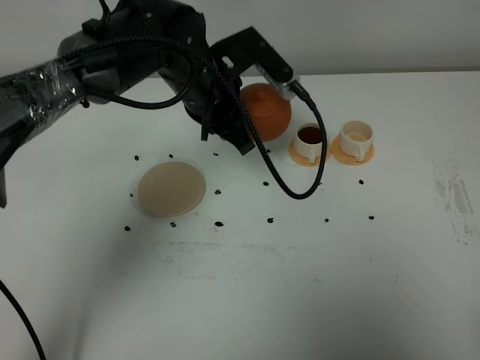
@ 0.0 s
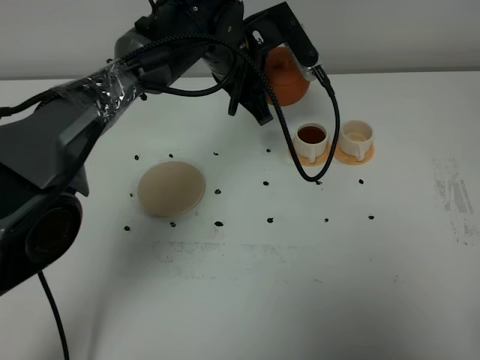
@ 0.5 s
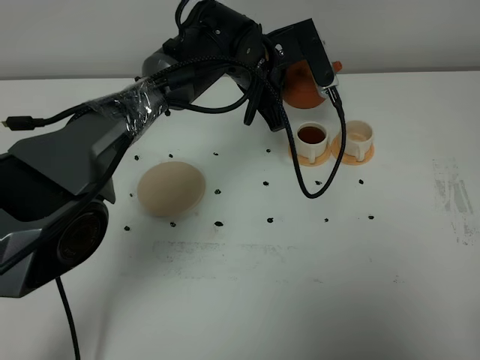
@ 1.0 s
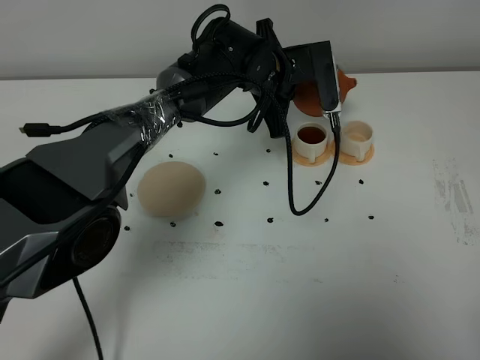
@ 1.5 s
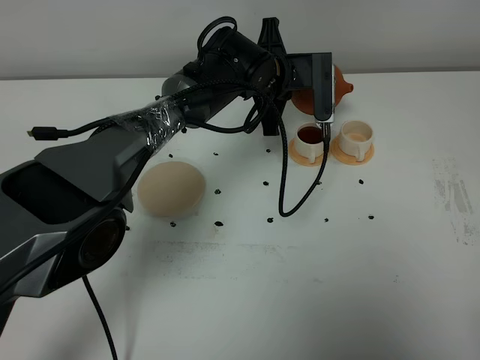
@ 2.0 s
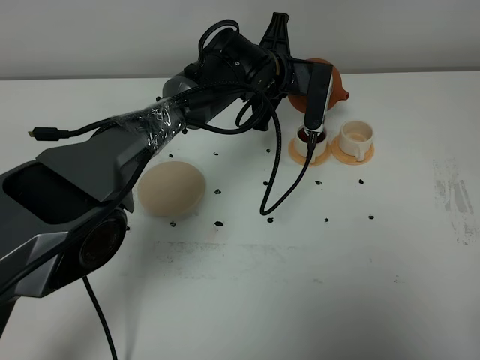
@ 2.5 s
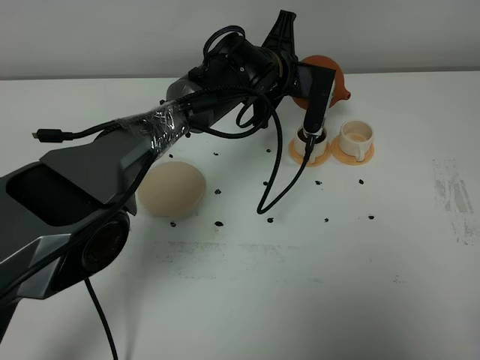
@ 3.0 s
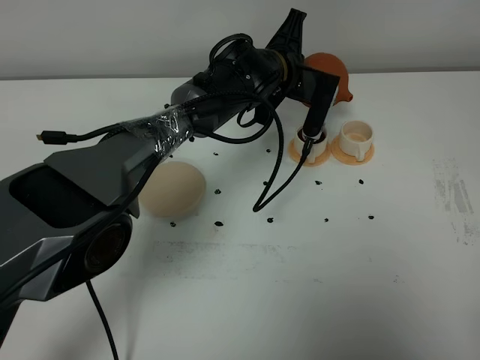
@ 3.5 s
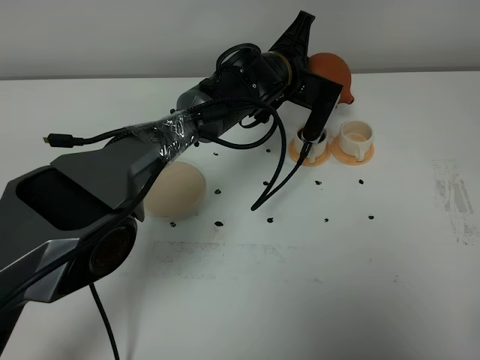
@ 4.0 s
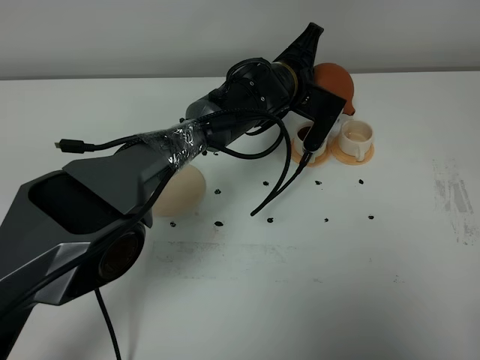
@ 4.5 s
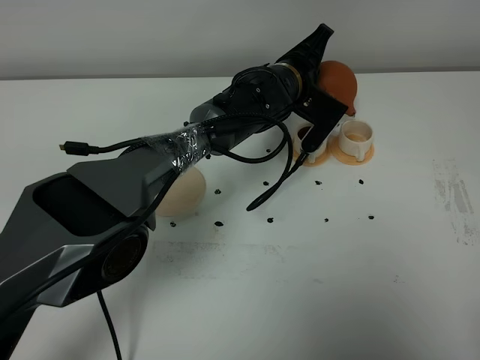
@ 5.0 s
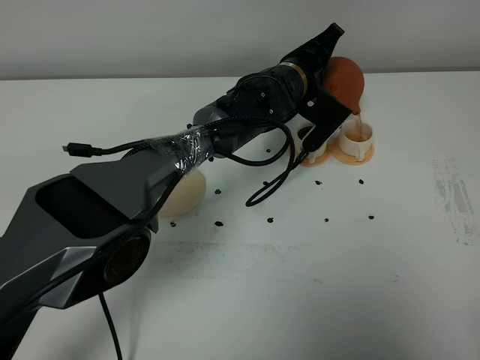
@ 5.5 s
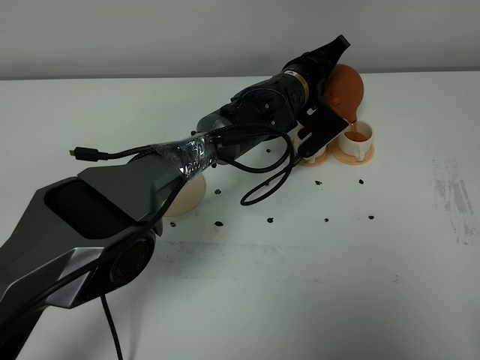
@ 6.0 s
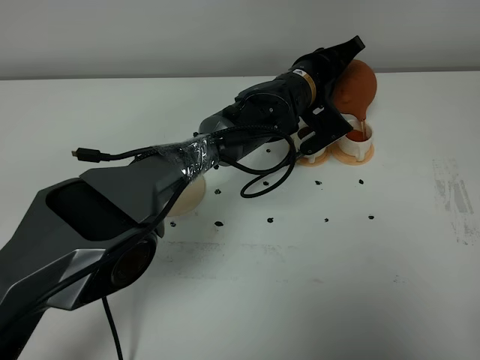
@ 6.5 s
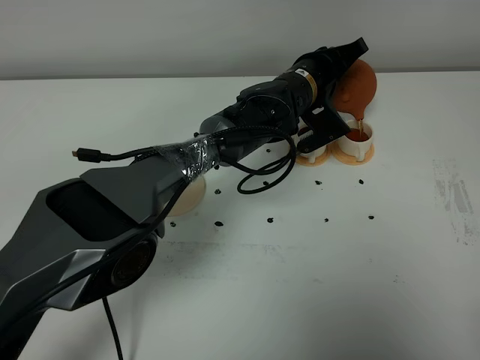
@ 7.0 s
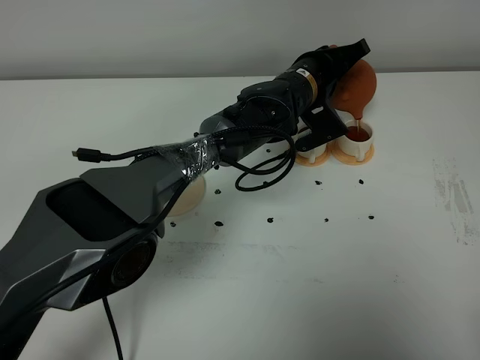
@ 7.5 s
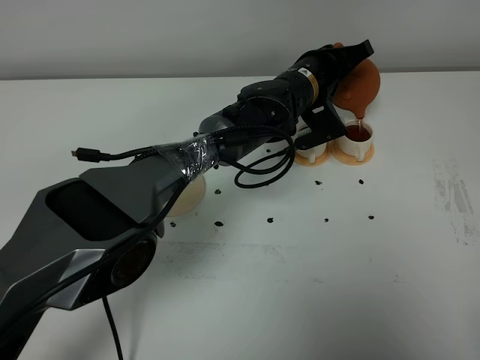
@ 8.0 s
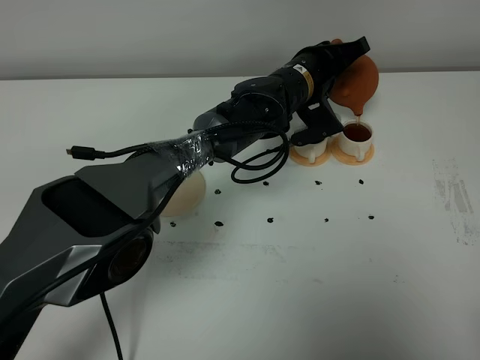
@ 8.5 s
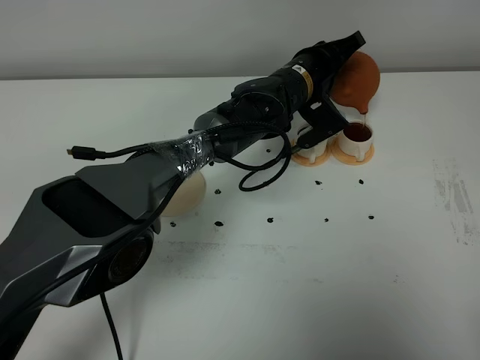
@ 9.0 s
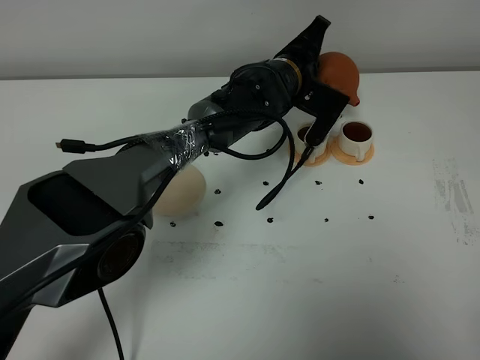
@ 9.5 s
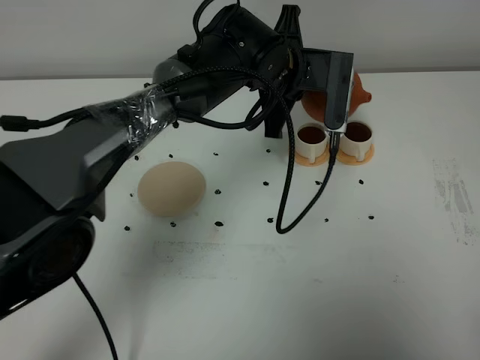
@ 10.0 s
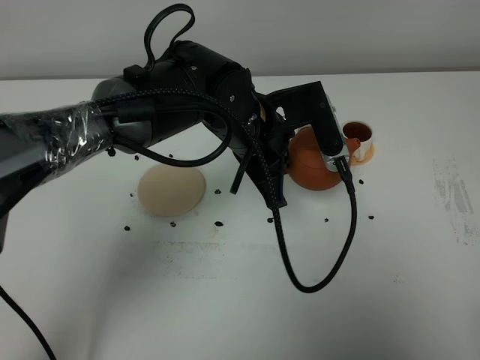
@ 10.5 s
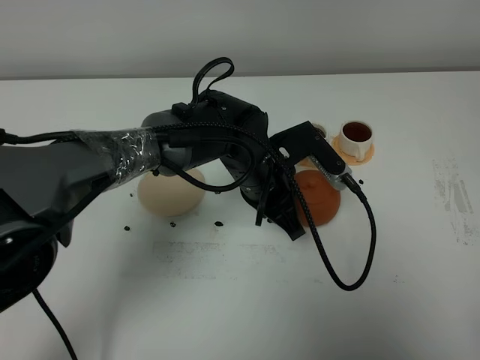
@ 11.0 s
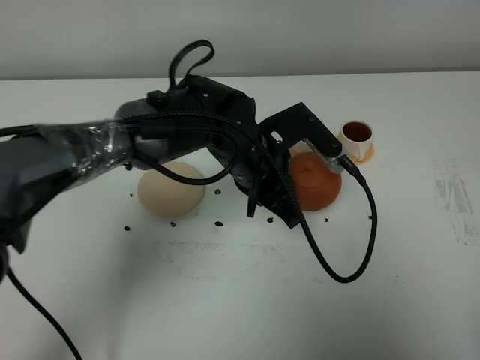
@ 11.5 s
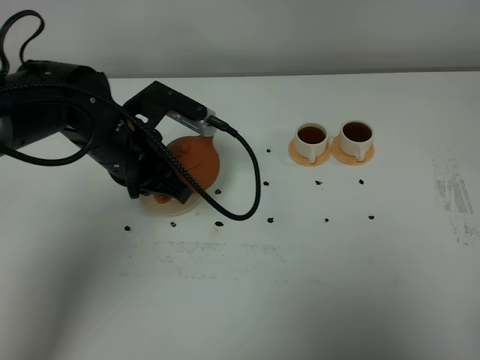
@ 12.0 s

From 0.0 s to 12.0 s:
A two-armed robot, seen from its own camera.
Task of the whole recording: grasp the brown teapot and pour the tea into the two white teacups one by one, put the brown teapot back in its original place.
Step, from 0.0 s to 9.5 s: Pour tea into the teacup with the left gripper.
From 0.0 s to 2.0 s: The left gripper heads to the right, forward and downward, covering roughly 10 cm.
From 6.0 s to 8.0 s: The grippers move only a little.
From 8.0 s to 10.0 s: The left gripper heads upward, covering about 5 cm.
From 10.0 s to 12.0 s: The left gripper heads to the left, covering approximately 20 cm.

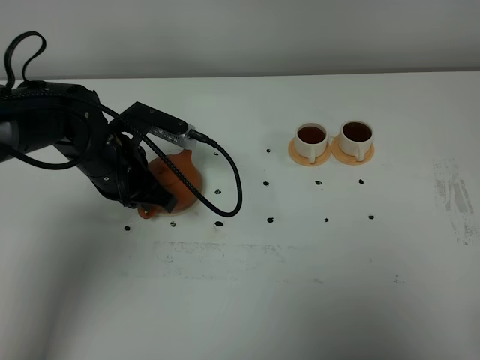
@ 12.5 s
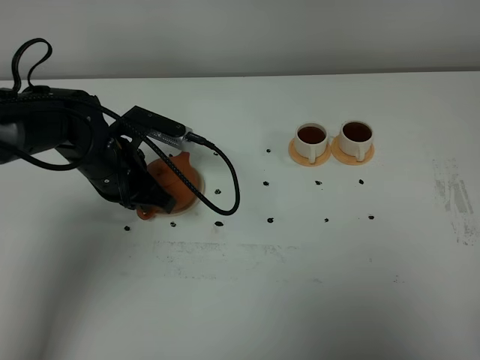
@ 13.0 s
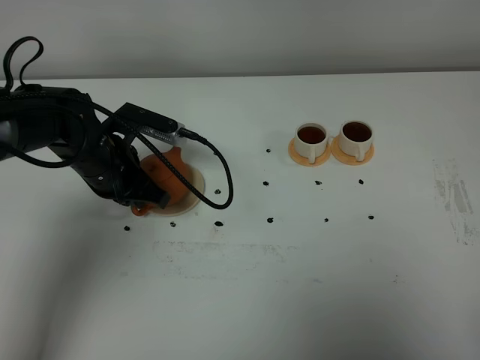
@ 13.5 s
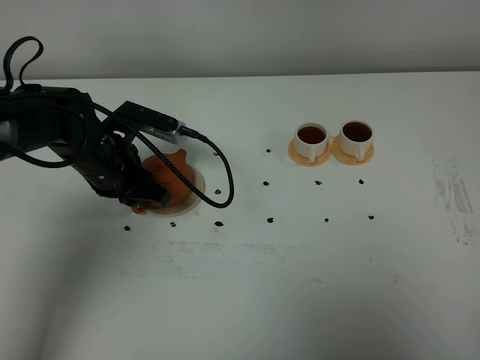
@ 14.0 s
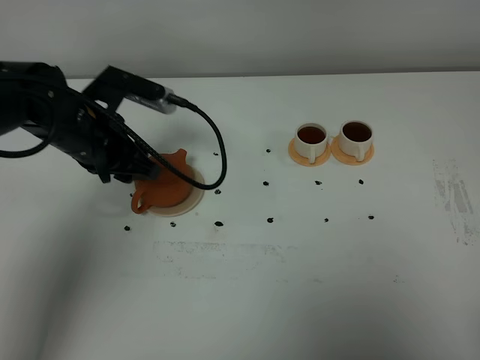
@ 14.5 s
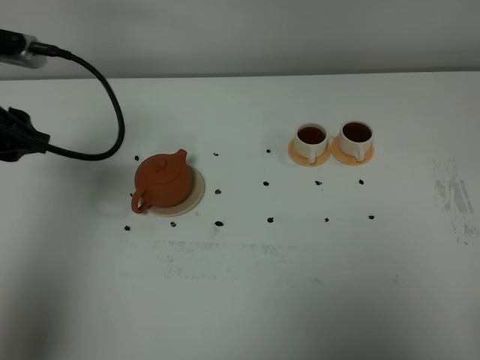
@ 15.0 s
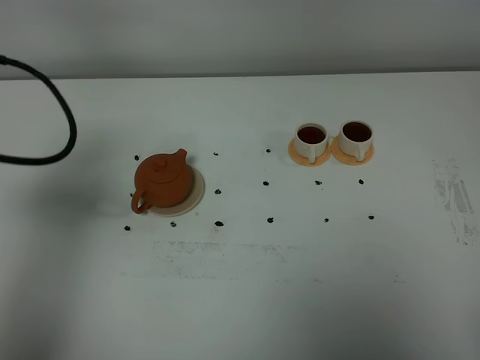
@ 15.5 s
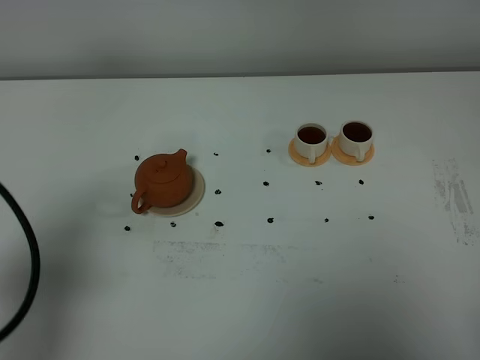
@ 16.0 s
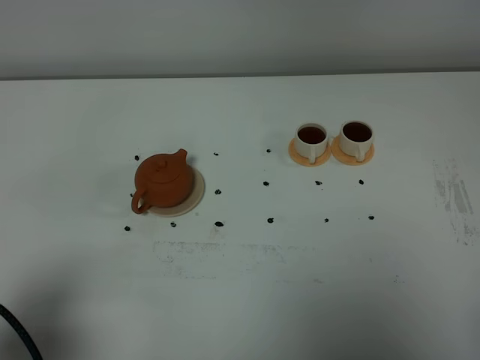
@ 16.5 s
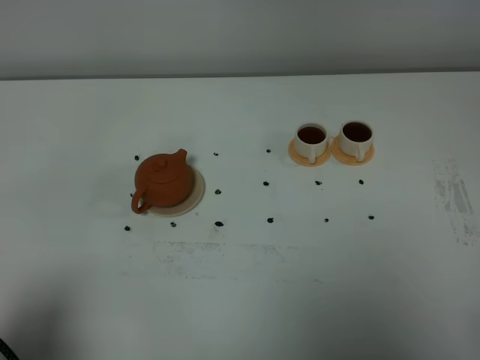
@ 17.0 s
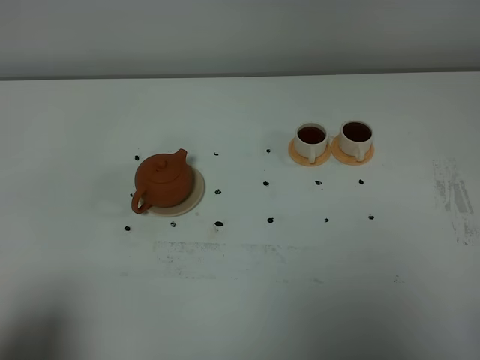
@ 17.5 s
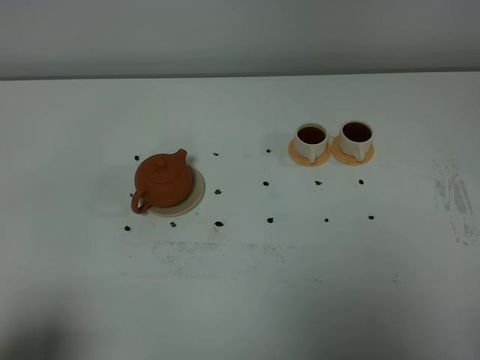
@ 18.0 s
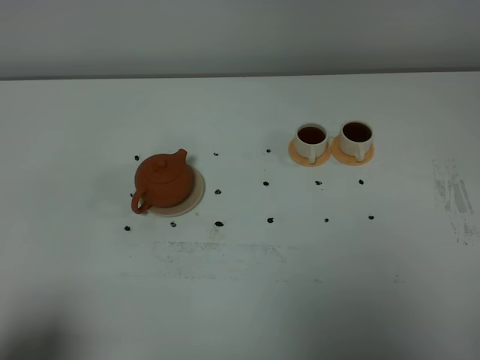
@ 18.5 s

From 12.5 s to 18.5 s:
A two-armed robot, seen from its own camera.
Task of the whole recording: grasp the brown teapot and pour the tea into the two white teacups one by one, put the brown teapot back in its original place.
From 12.5 s to 14.5 s: The left gripper travels upward by about 5 cm, and opens its fingers.
From 14.5 s to 16.5 s: The left gripper moves backward, some 30 cm.
